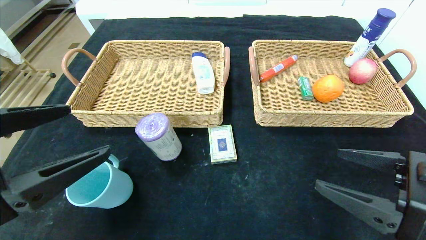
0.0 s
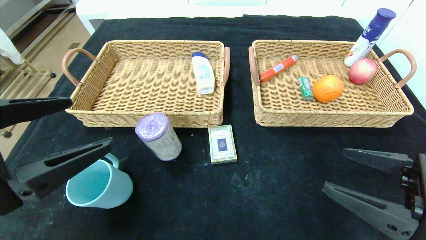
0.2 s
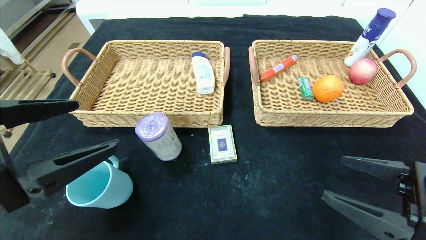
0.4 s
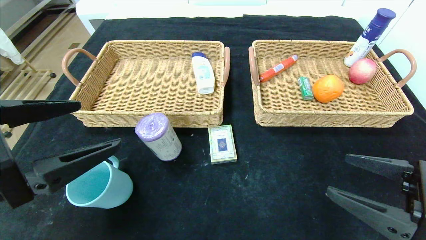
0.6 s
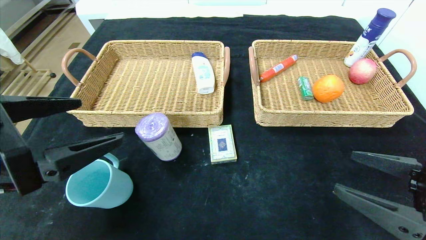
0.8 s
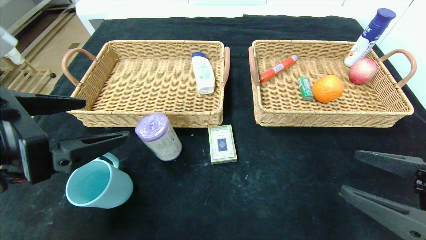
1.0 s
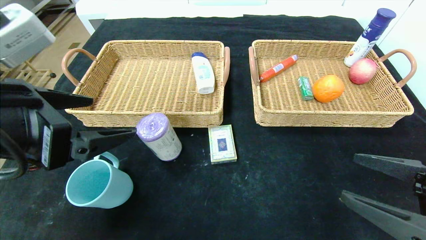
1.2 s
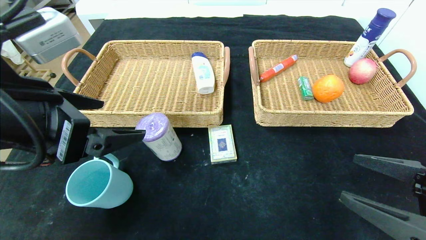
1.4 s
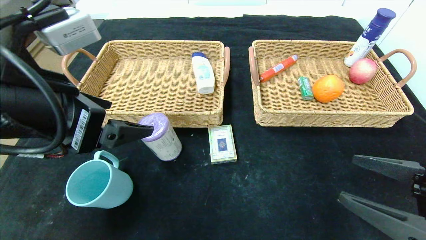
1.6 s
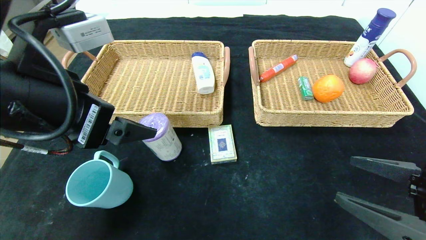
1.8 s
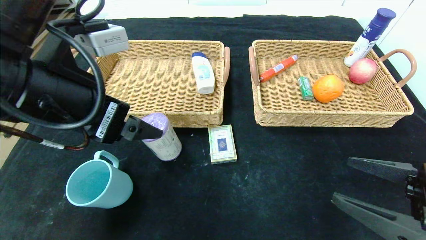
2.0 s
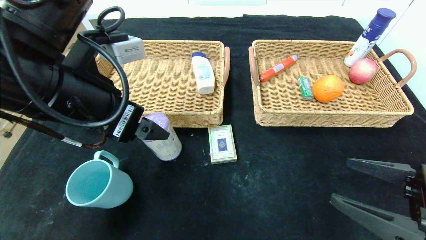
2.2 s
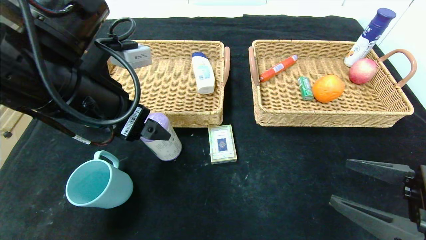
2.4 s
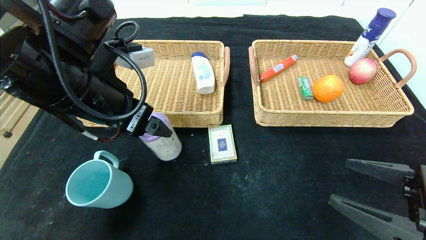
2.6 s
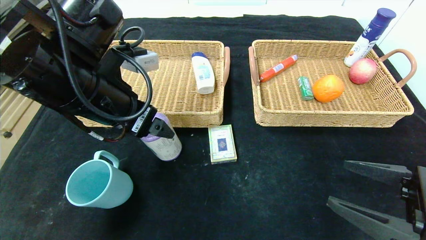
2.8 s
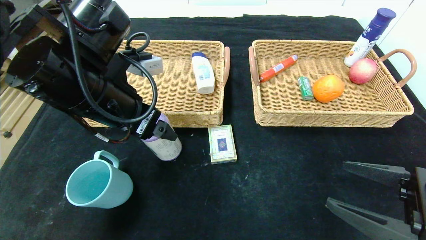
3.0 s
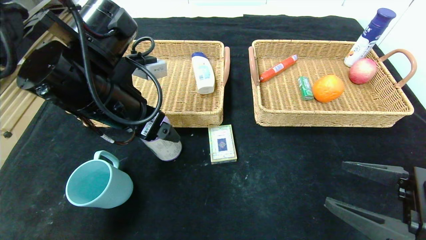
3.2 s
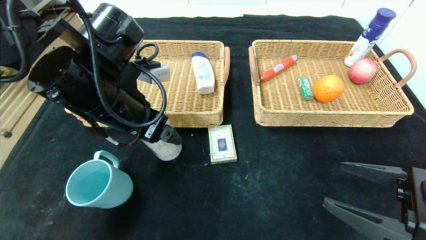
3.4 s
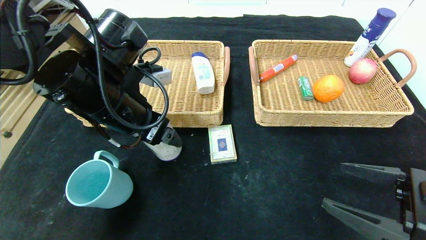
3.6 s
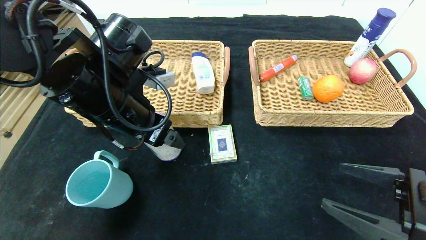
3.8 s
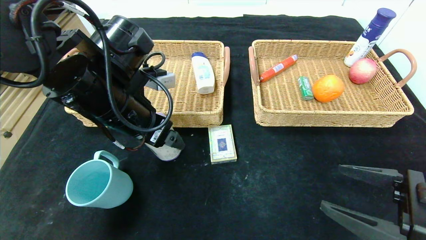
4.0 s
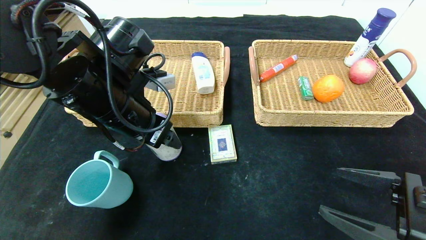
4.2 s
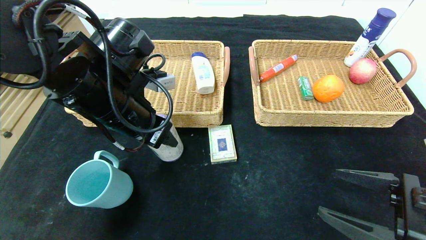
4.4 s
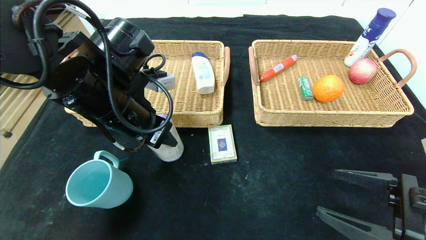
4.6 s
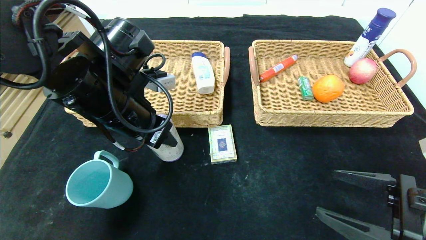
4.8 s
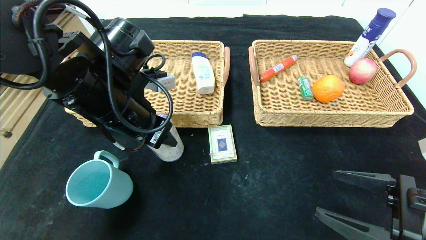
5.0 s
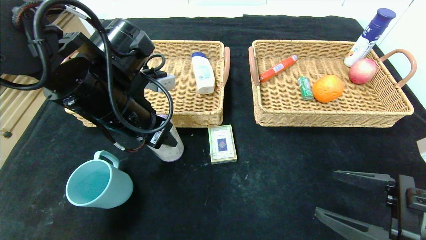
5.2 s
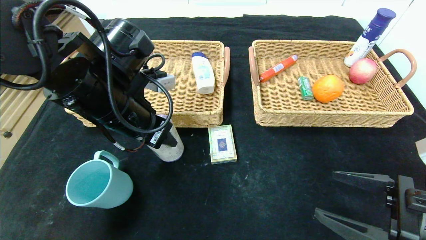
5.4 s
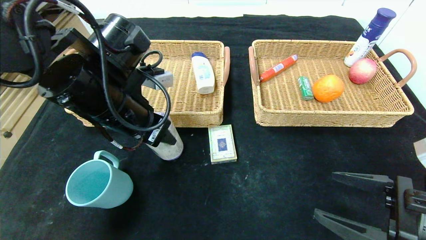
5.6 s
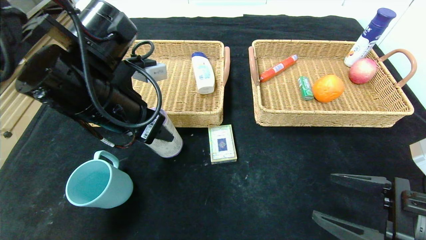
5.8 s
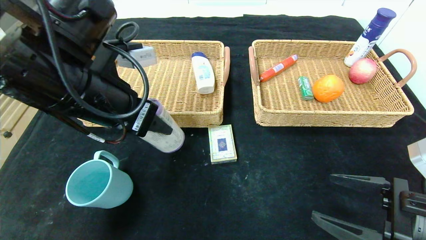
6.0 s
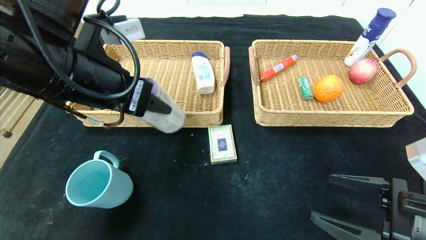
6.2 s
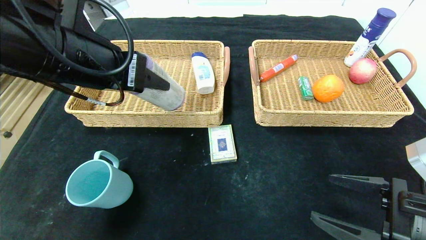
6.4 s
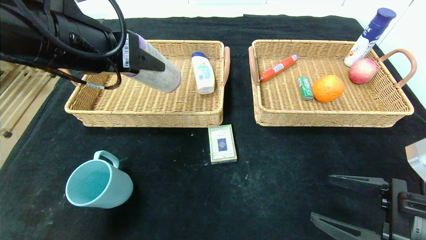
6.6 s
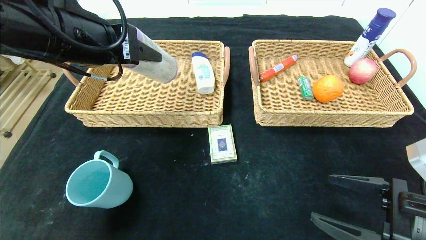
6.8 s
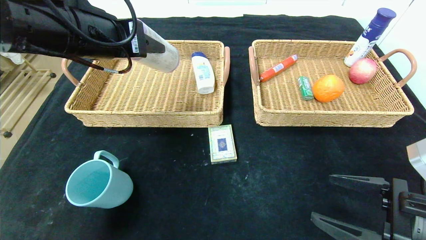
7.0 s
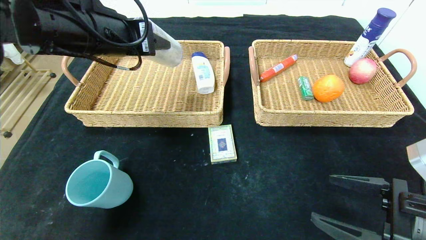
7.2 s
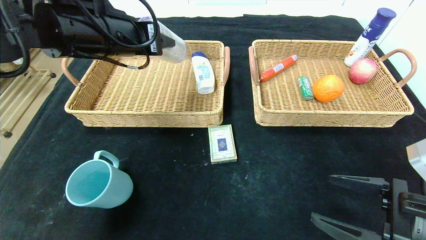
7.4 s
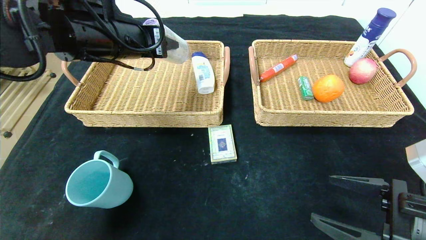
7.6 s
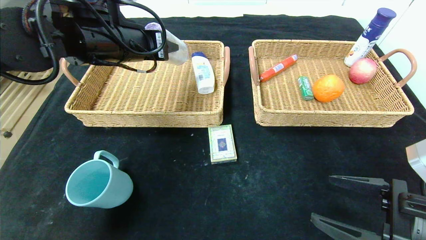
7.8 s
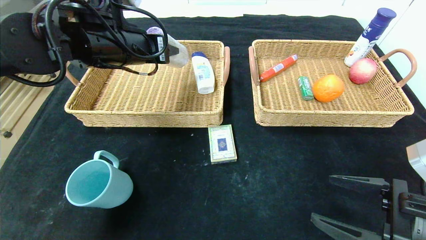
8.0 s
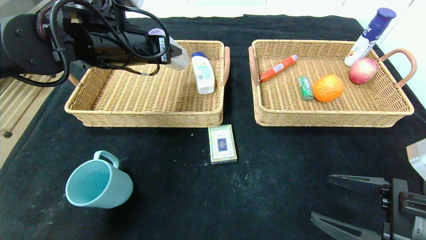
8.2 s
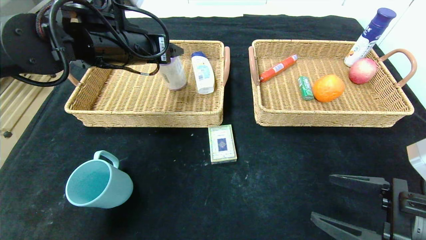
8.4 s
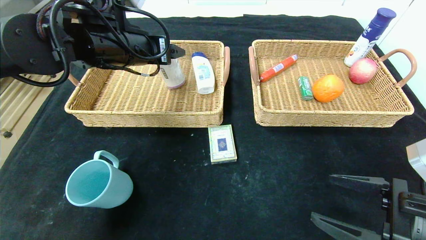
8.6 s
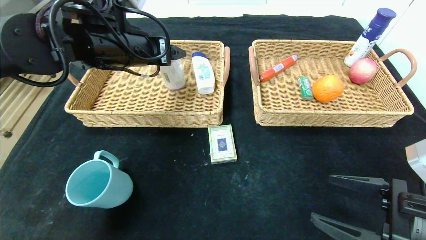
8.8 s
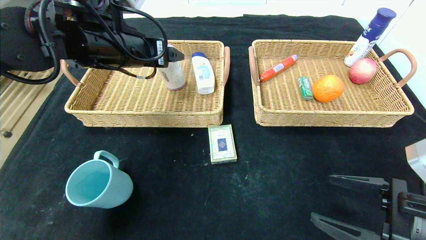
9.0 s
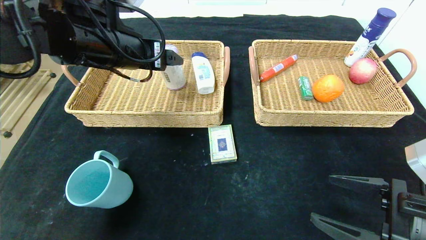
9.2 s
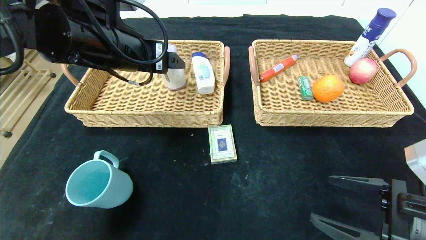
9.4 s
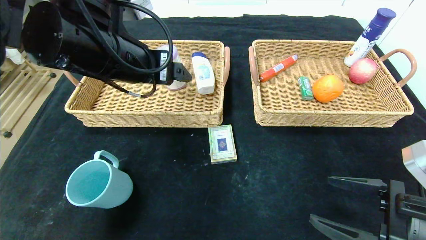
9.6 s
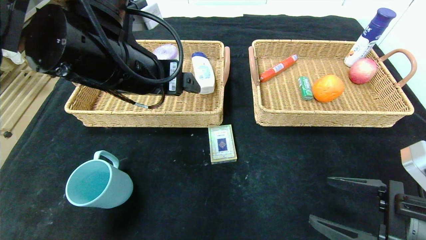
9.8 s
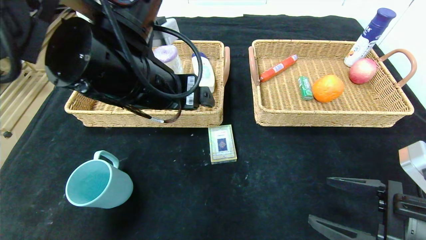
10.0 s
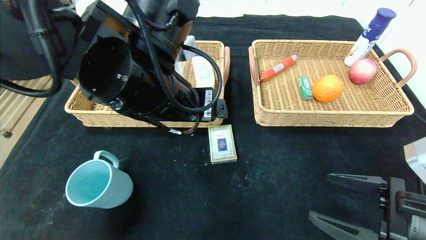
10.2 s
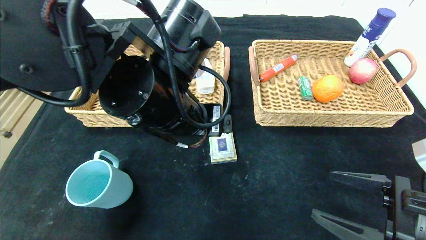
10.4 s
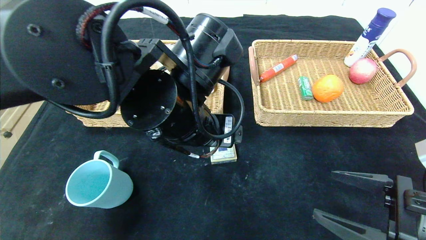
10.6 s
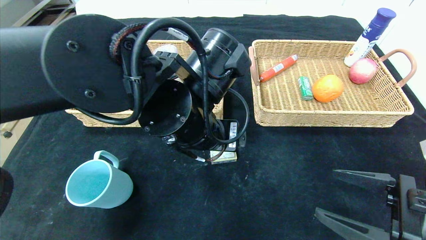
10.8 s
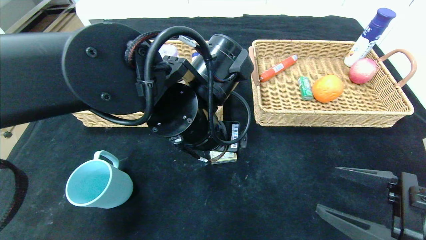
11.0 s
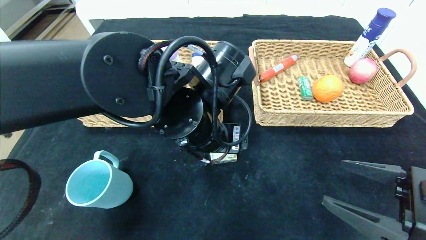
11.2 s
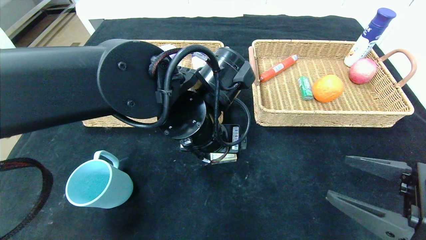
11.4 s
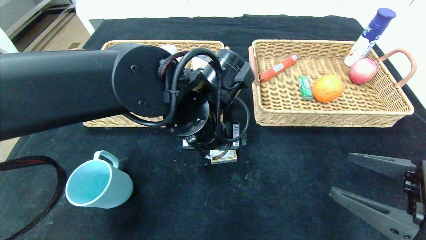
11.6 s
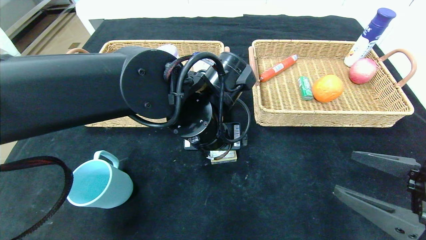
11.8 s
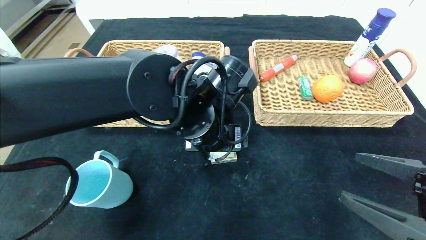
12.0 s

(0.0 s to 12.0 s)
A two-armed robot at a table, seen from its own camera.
Step, 0.0 s - 8.4 s: Grasp the purple garbage bag and put it in the left basket.
0.0 s - 1.6 s: The left gripper is displaced forward by some 5 cm.
1.6 s - 3.0 s: The left gripper is displaced forward by some 10 cm.
3.0 s - 4.4 s: The left gripper closes up.
4.4 s - 6.0 s: The grippers move only a little.
6.0 s - 7.6 s: The left gripper heads forward, covering approximately 10 cm.
7.6 s - 9.0 s: The left gripper opens its fingers.
9.0 s - 10.4 s: The left gripper moves to the right, backward and downward, about 15 cm.
10.4 s - 12.0 s: The left gripper travels downward by about 5 cm.

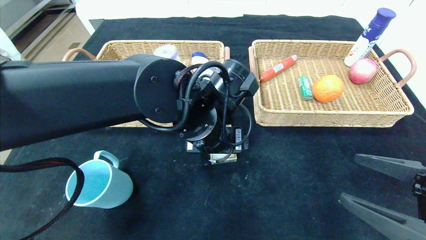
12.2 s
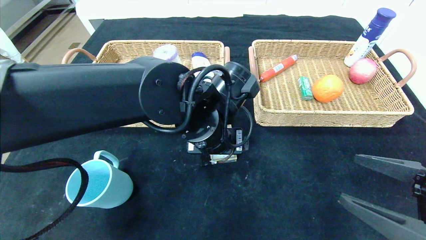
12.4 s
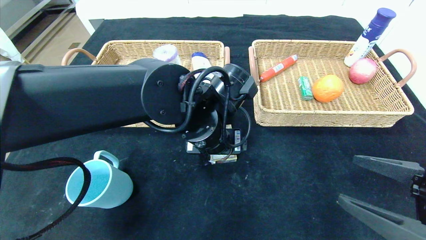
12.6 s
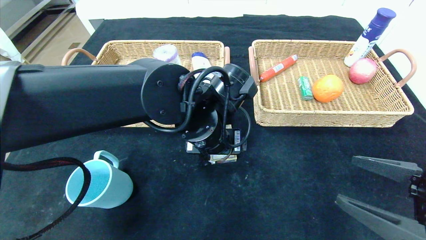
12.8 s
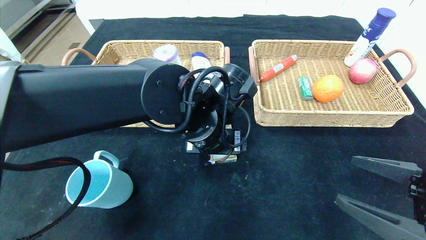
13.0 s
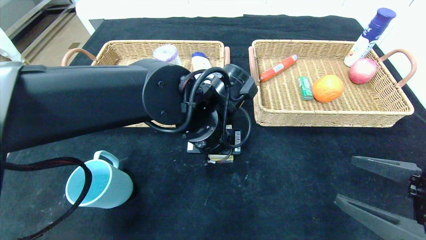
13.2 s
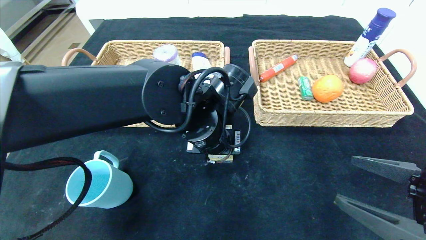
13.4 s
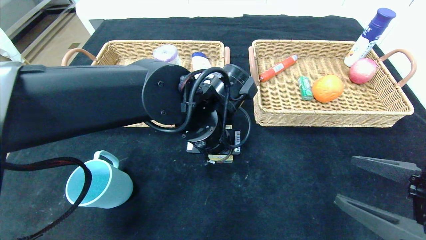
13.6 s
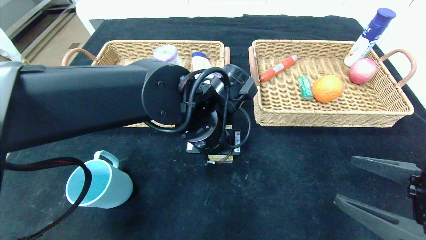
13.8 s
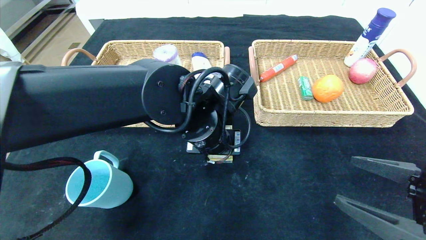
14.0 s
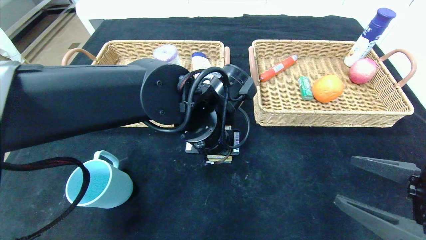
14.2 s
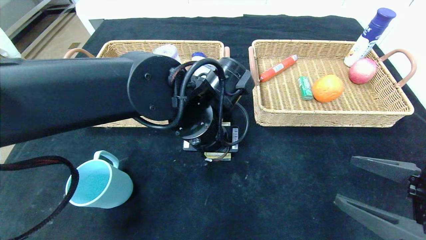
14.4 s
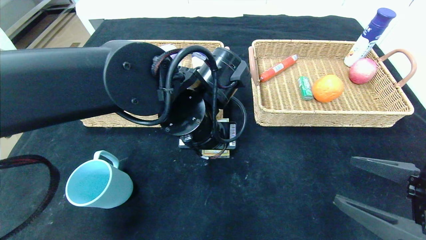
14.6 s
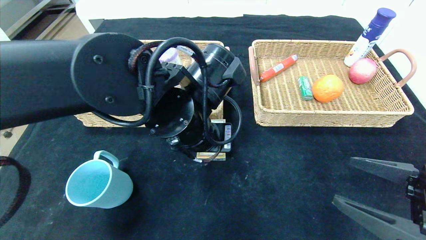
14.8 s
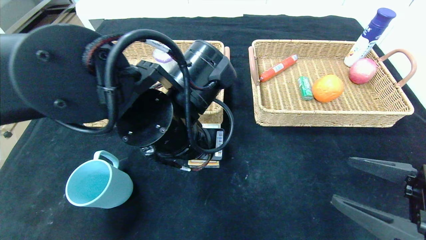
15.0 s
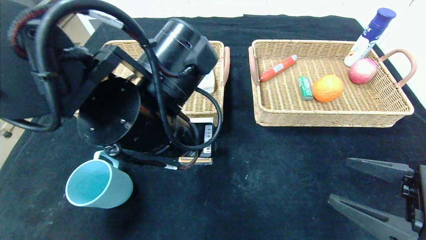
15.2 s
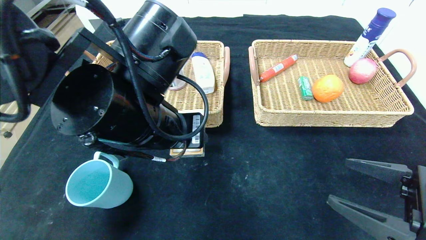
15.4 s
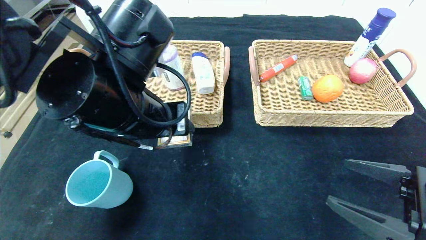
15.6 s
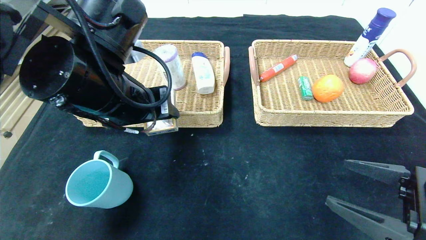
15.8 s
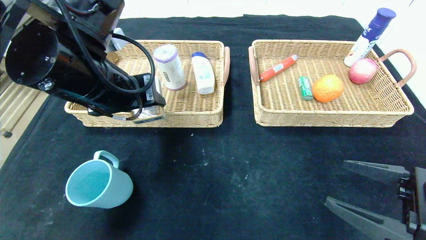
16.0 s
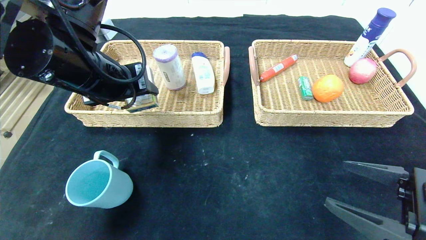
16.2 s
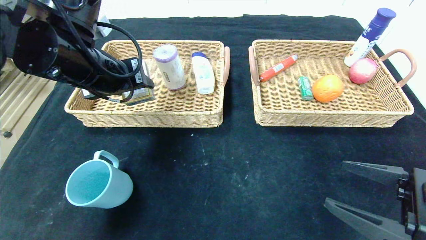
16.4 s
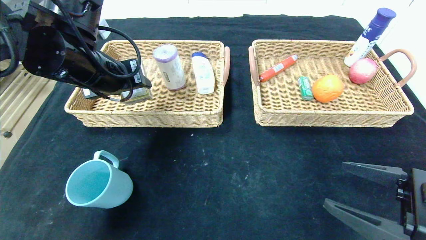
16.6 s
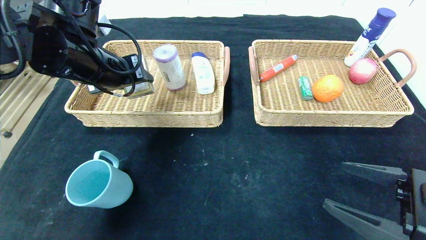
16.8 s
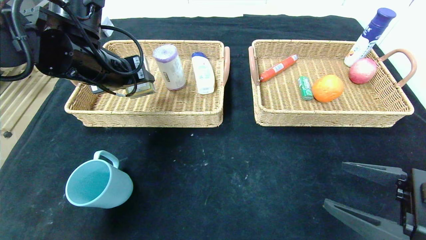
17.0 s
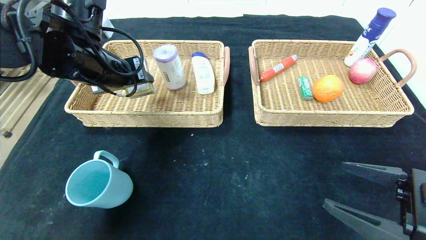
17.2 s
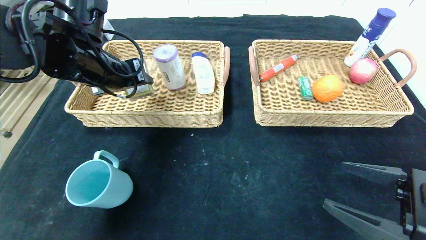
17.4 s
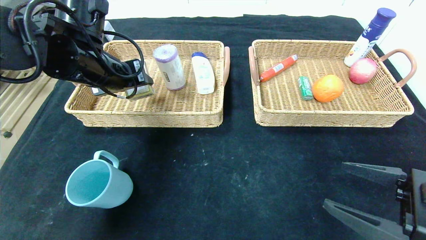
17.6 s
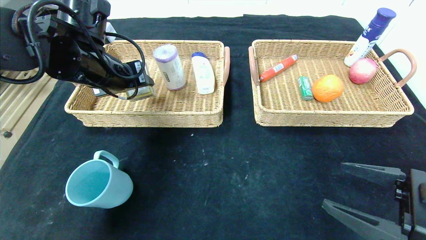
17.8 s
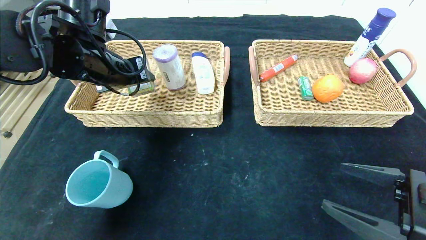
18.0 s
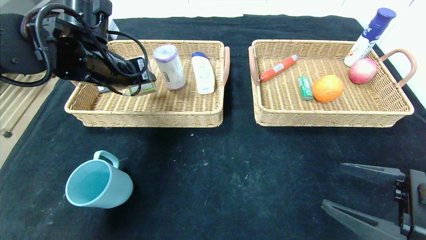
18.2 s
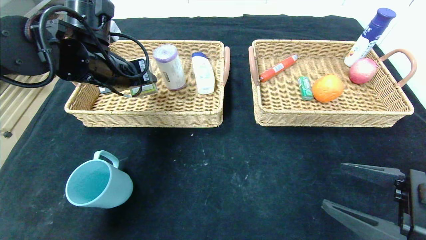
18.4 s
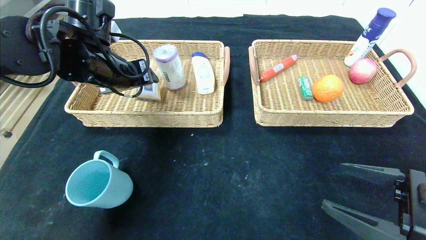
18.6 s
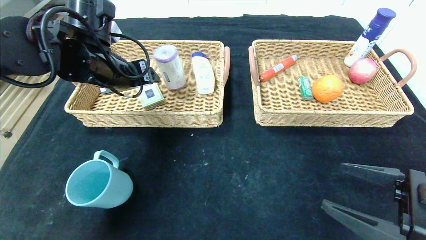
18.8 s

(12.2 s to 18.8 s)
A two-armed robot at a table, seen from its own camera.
Step, 12.2 s - 18.8 s: Grasp the playing cards and put it in the left basket.
12.2 s - 13.8 s: The left gripper closes.
13.8 s - 15.4 s: The left gripper is displaced to the left, backward and upward by about 10 cm.
15.4 s - 17.2 s: The left gripper is displaced to the left and forward by approximately 15 cm.
17.2 s - 18.8 s: The grippers stay close to where they were, moving slightly.
